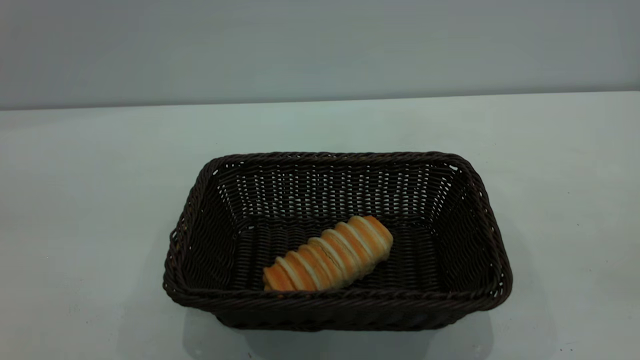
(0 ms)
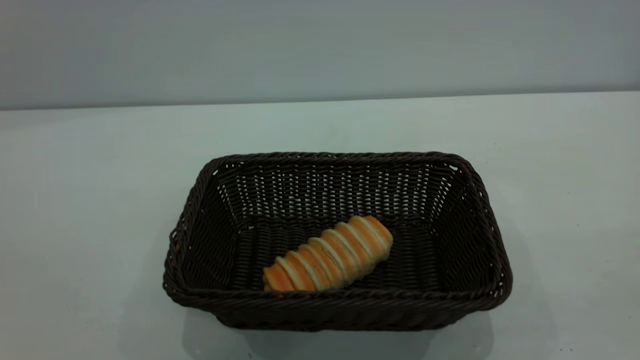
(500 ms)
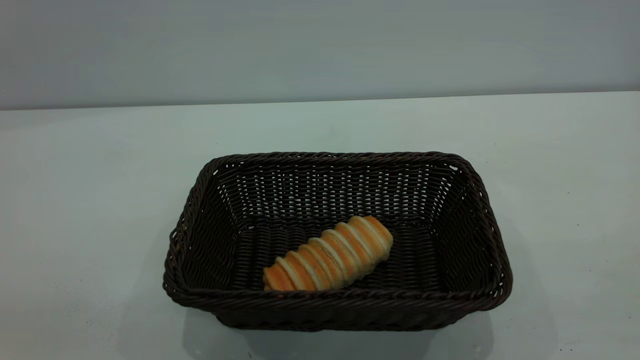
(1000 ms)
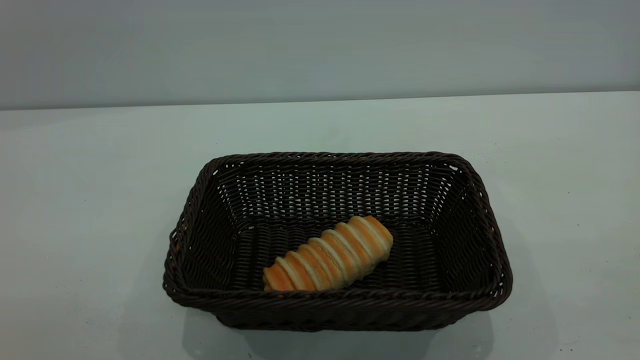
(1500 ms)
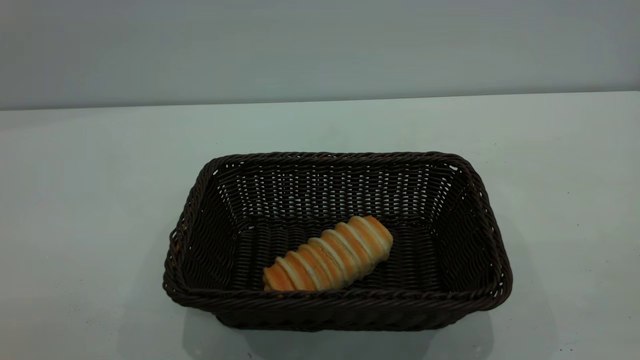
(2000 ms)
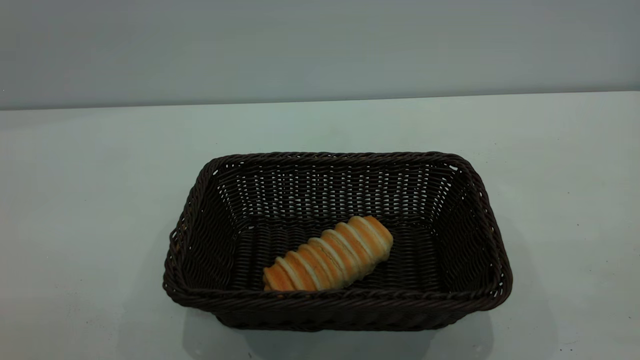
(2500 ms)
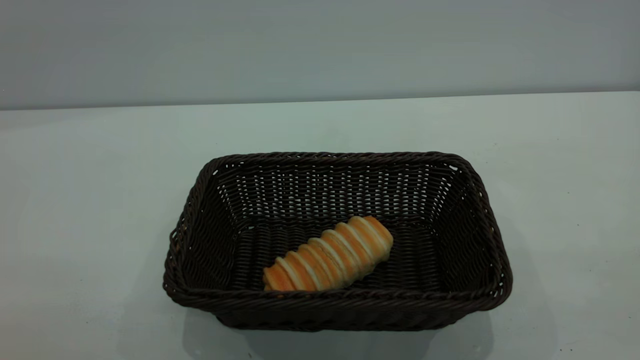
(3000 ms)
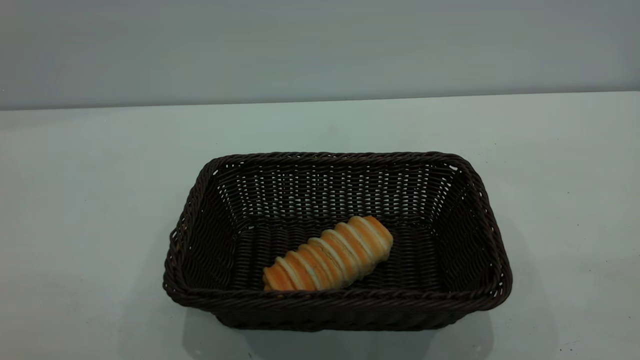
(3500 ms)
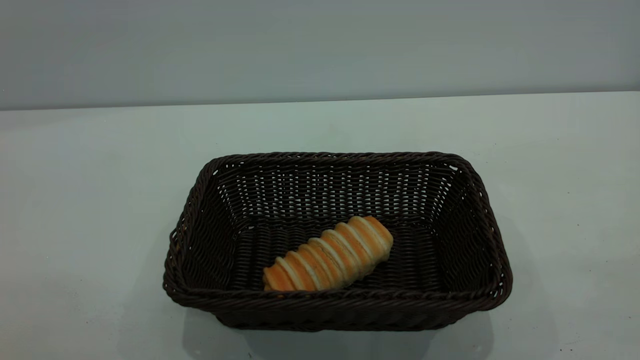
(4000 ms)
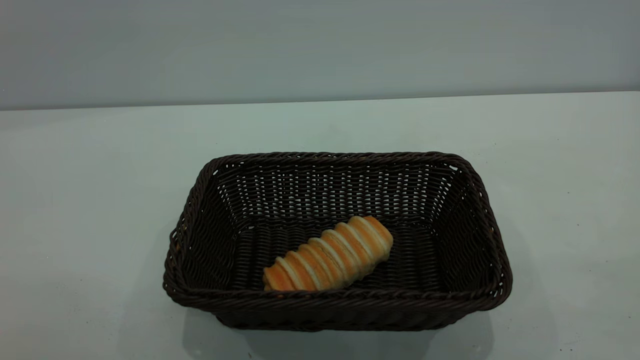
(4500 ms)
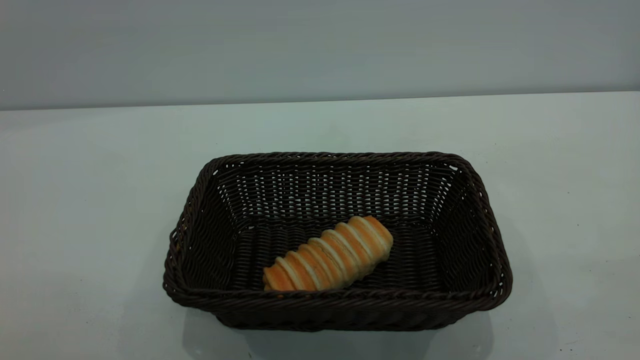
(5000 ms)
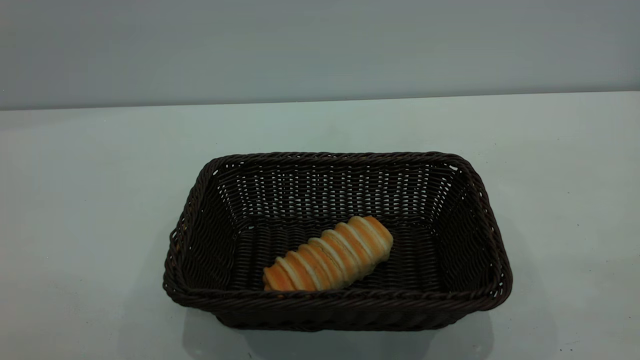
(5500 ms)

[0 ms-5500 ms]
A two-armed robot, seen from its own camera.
Task of the whole recording: One hand grasps the black basket and places it in the middle of the table, while the other hand picks up the long bread and puts it into the black basket.
3500 ms to 5500 ms: The two grippers keep their place.
